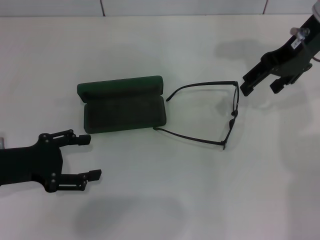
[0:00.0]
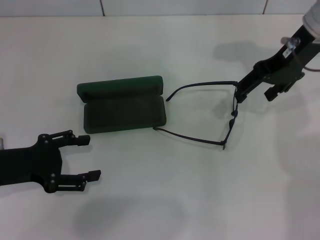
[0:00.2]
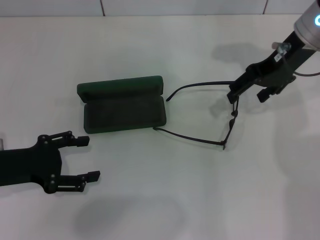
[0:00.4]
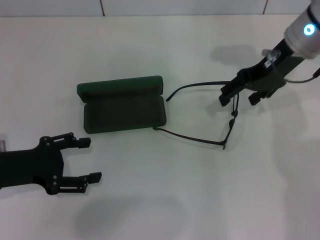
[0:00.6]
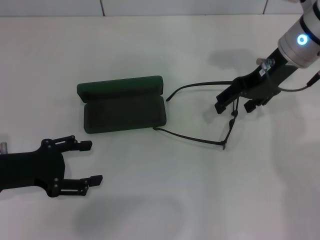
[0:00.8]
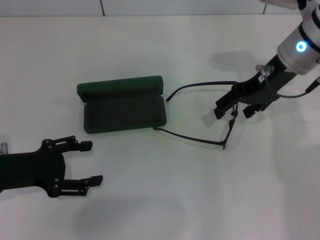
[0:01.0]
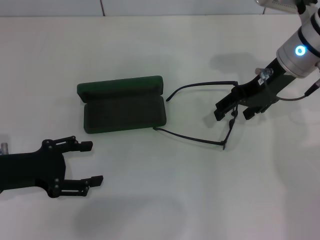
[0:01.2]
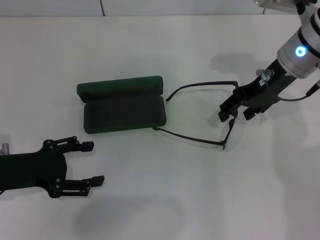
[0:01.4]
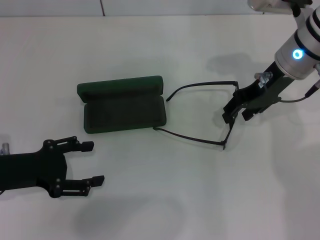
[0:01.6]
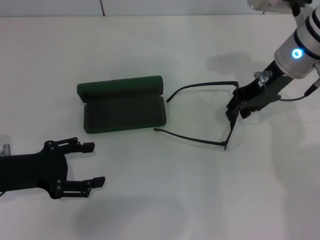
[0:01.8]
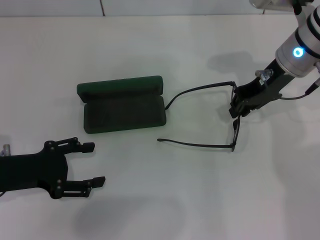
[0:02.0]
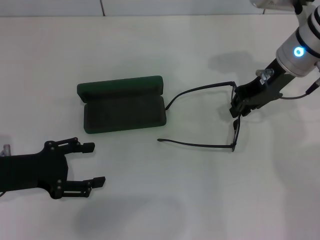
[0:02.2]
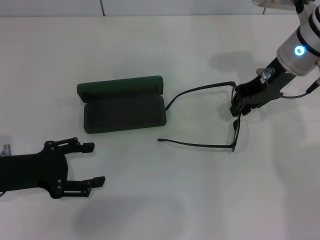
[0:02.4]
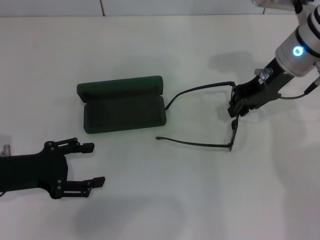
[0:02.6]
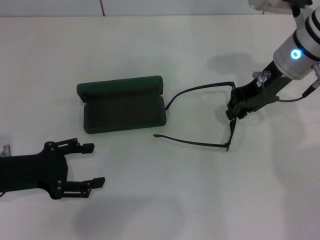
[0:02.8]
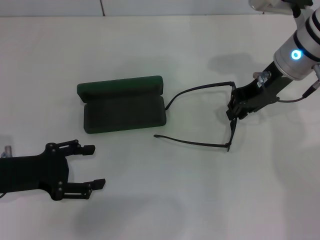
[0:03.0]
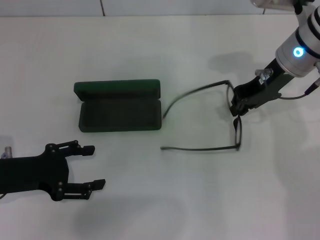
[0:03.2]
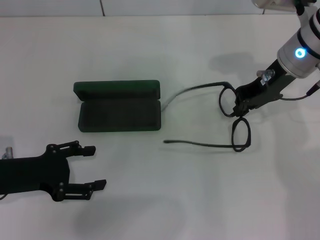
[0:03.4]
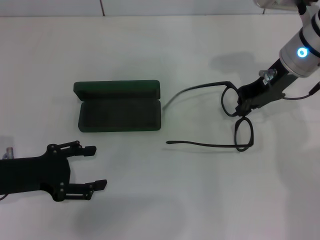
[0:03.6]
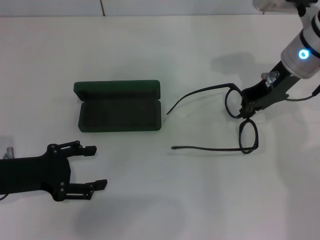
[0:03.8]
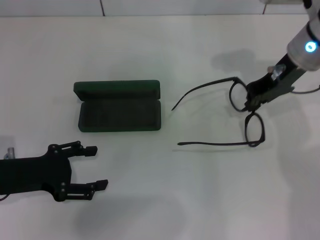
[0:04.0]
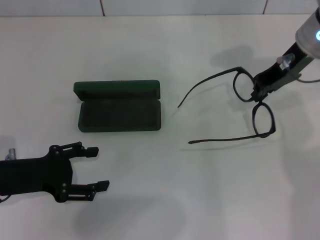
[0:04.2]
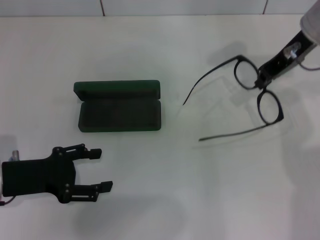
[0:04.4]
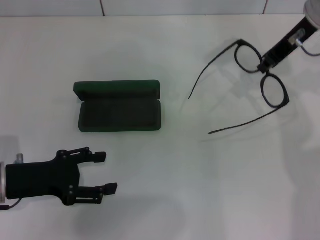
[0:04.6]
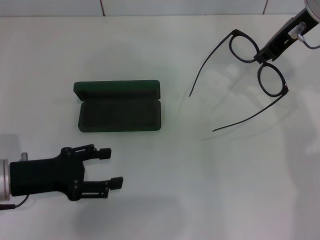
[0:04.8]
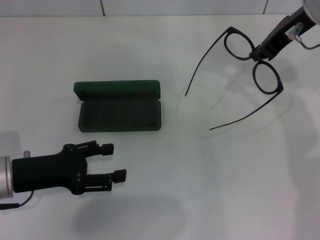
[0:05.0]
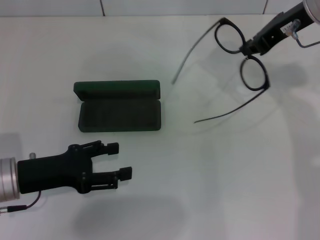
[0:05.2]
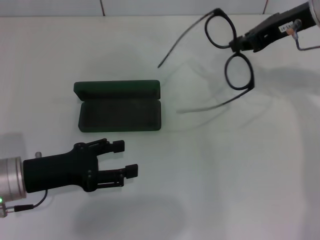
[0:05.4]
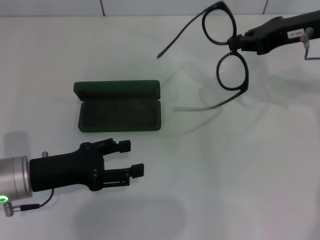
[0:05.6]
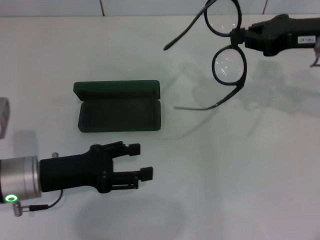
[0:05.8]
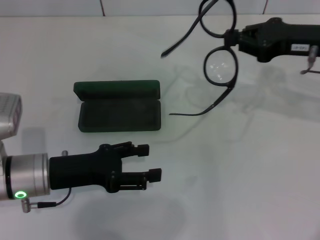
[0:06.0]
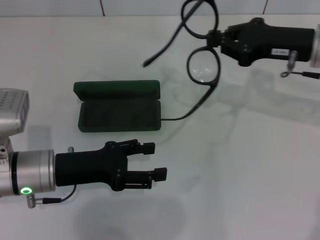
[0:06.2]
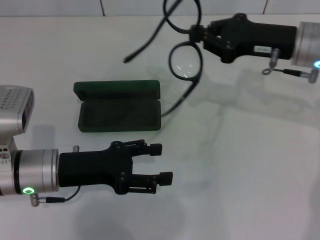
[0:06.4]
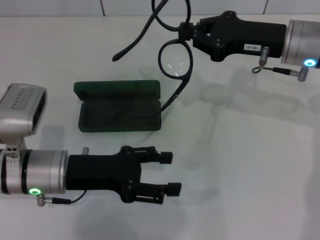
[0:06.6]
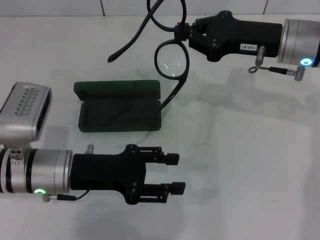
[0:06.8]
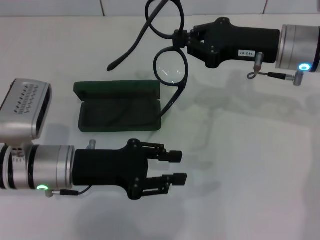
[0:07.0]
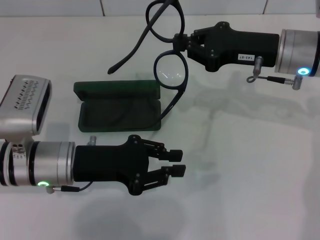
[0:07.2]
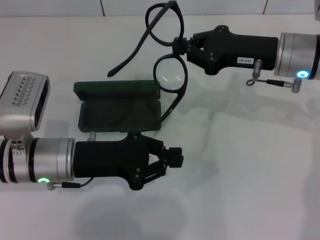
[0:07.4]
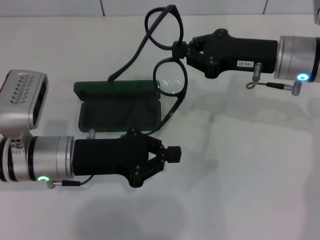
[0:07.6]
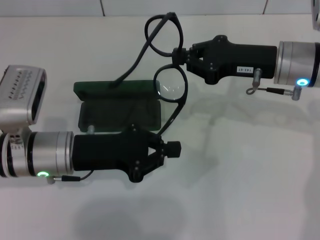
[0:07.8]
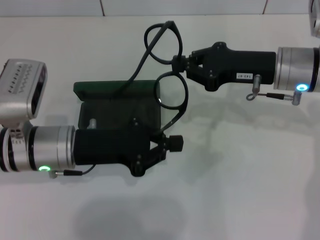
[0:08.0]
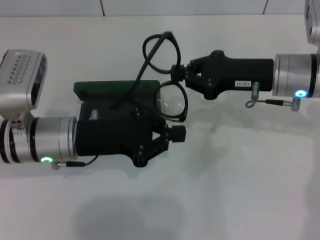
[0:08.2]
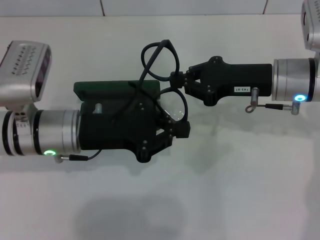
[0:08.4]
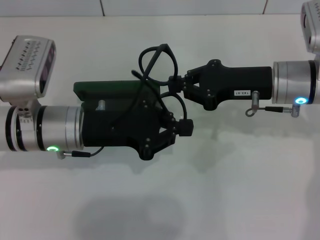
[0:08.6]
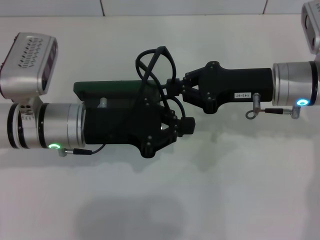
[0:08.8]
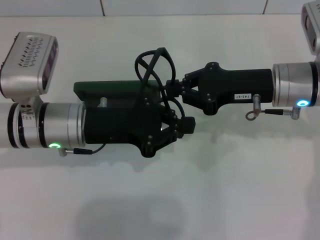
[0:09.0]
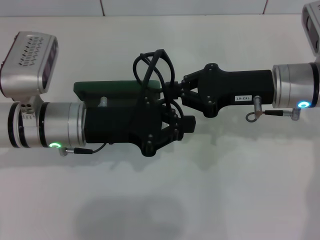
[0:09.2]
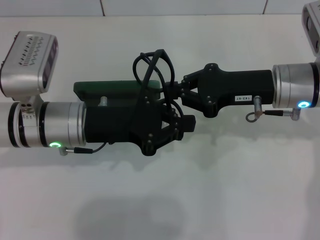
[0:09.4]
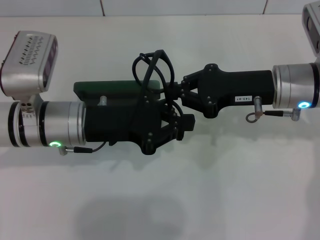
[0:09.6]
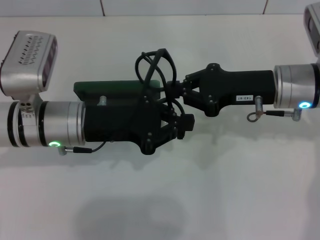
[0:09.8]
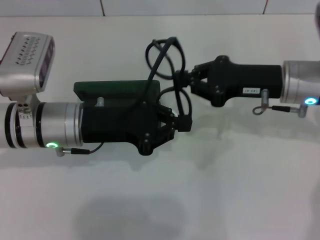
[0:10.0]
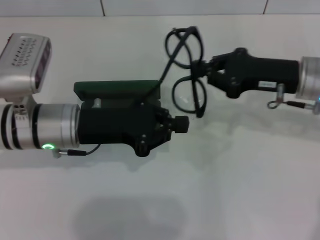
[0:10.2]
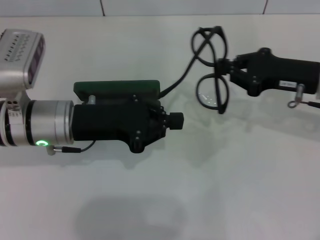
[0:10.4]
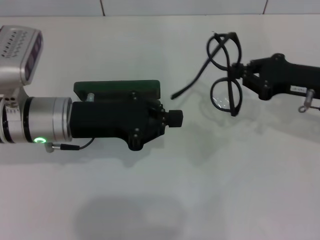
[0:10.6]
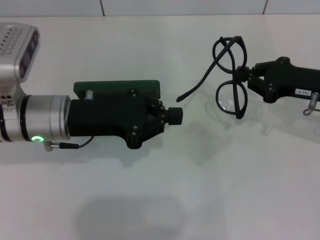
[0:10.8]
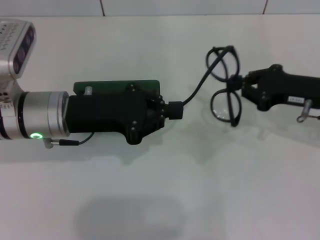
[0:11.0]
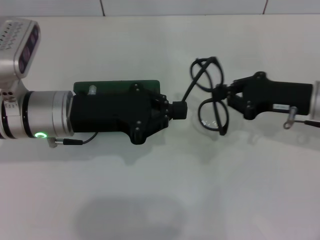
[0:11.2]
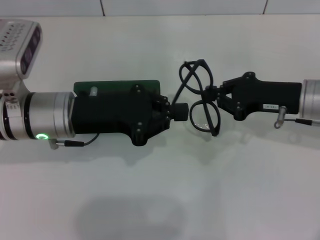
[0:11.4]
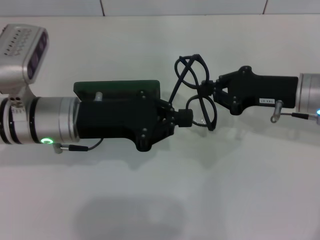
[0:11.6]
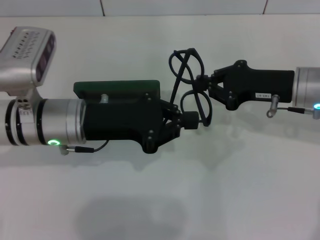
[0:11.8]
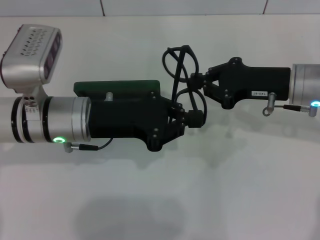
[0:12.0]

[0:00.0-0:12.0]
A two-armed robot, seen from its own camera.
Step, 0:00.0 to 0:03.4: Grab the eyeglass frame with your right hand.
0:00.0 to 0:01.6: The right gripper shifts approximately 5 cm downward.
0:01.6 to 0:03.0: The right gripper closes its fingers.
0:03.0 to 0:04.4: The right gripper travels upward by about 5 cm.
0:04.4 to 0:06.0: Both grippers travel together to the right, roughly 5 cm.
0:06.0 to 0:07.6: The right gripper goes roughly 5 cm to the left, while the left gripper closes.
0:09.0 to 0:10.4: The right gripper shifts approximately 5 cm to the right.
0:10.4 to 0:12.0: There are only small adjustments of the grippers.

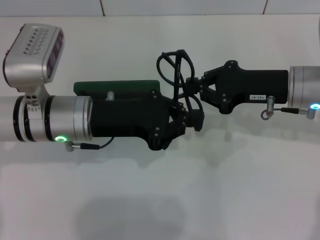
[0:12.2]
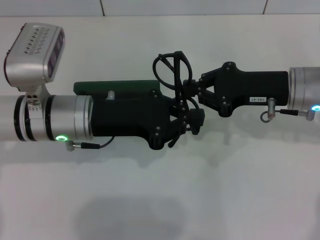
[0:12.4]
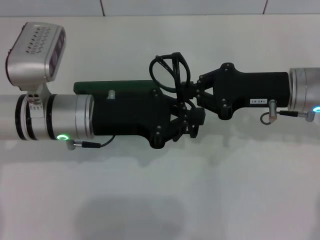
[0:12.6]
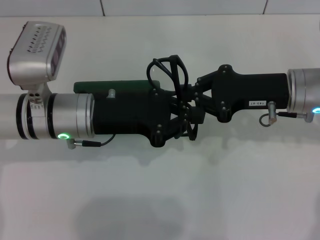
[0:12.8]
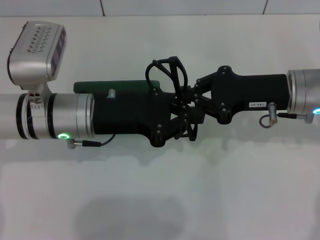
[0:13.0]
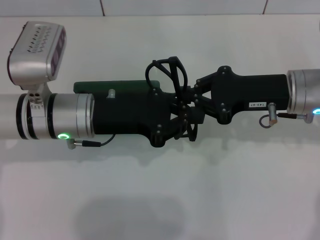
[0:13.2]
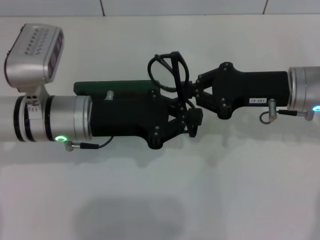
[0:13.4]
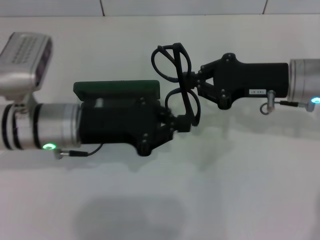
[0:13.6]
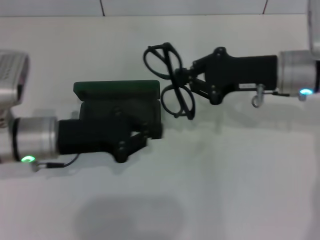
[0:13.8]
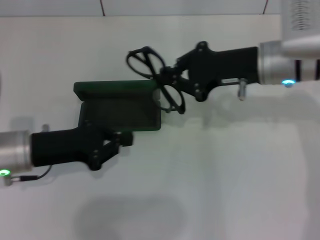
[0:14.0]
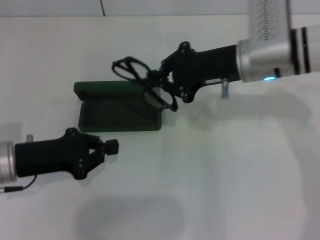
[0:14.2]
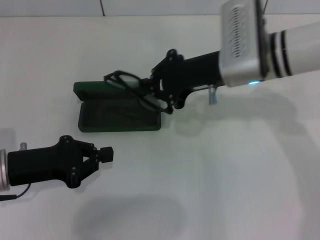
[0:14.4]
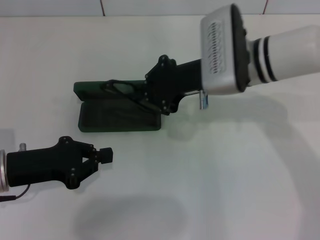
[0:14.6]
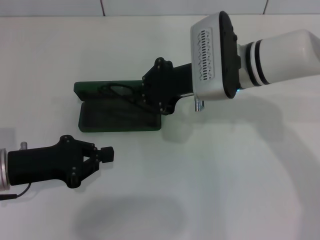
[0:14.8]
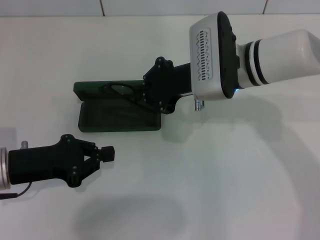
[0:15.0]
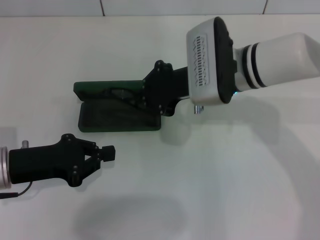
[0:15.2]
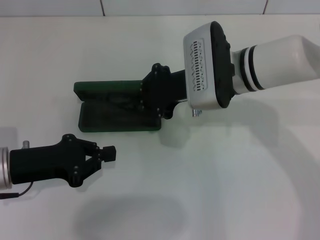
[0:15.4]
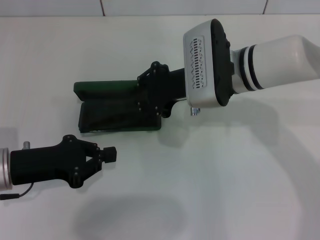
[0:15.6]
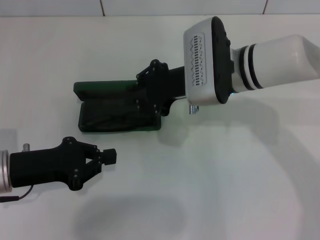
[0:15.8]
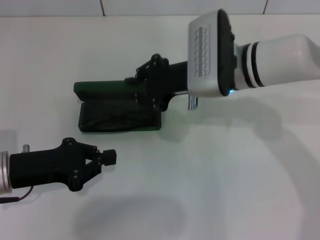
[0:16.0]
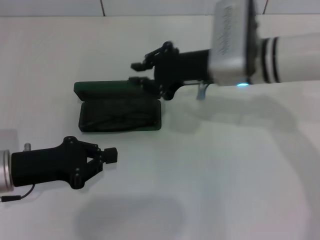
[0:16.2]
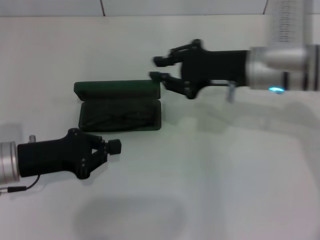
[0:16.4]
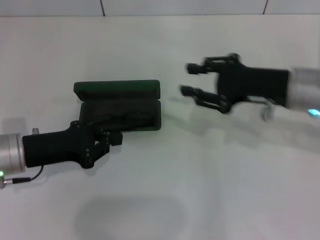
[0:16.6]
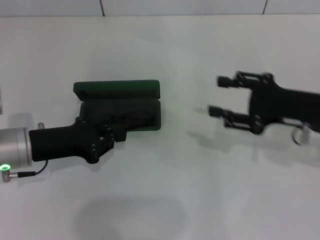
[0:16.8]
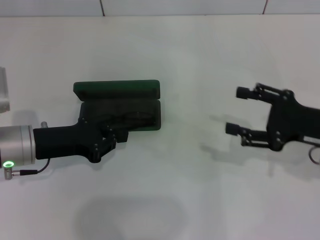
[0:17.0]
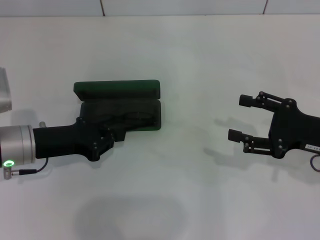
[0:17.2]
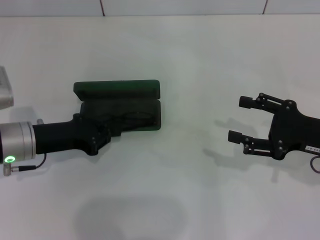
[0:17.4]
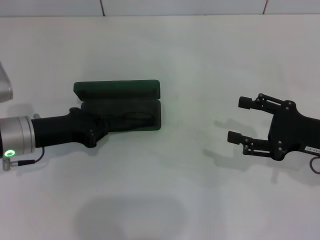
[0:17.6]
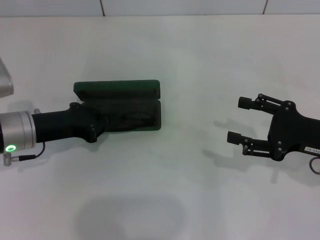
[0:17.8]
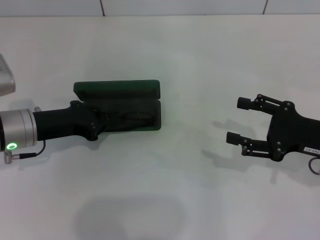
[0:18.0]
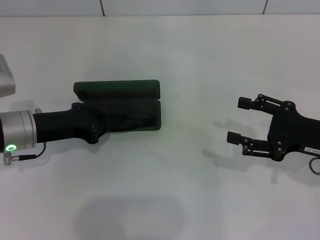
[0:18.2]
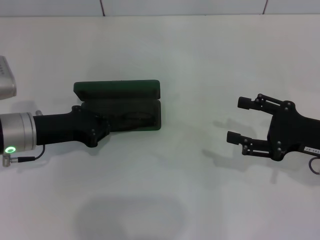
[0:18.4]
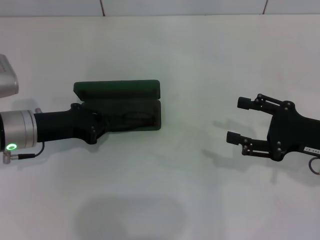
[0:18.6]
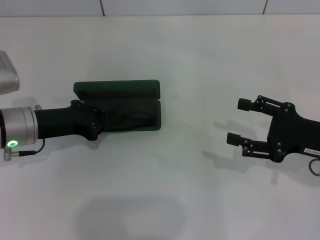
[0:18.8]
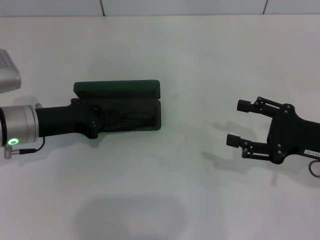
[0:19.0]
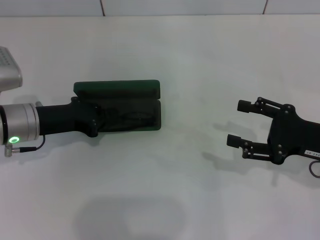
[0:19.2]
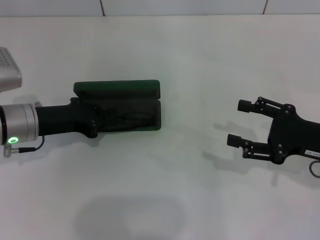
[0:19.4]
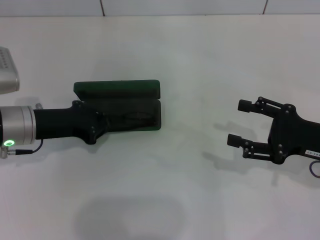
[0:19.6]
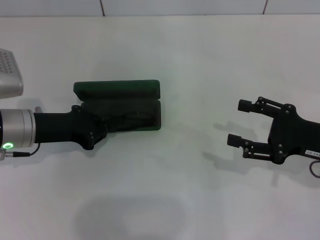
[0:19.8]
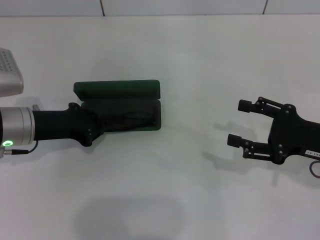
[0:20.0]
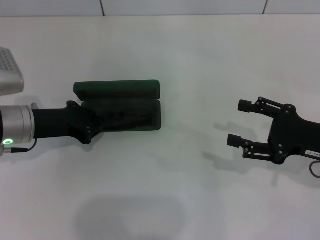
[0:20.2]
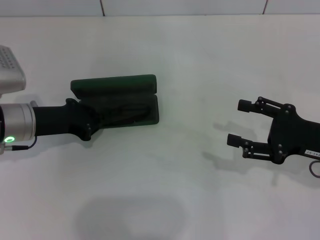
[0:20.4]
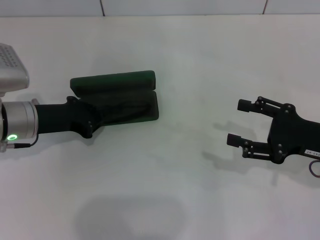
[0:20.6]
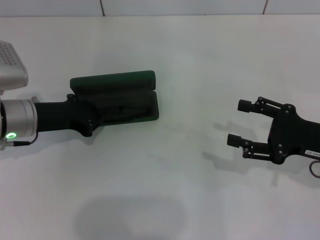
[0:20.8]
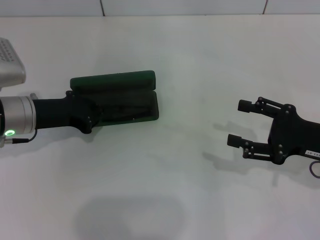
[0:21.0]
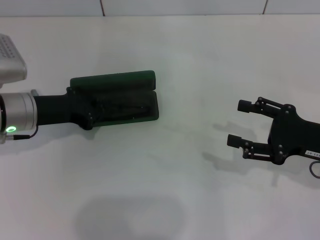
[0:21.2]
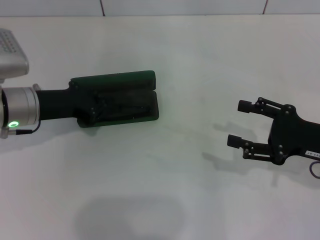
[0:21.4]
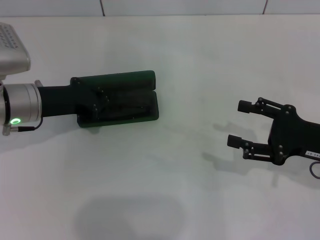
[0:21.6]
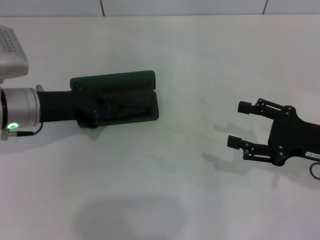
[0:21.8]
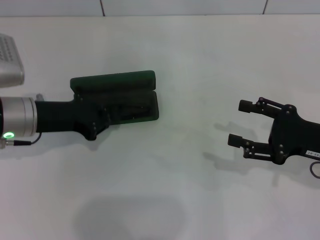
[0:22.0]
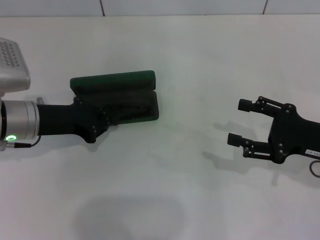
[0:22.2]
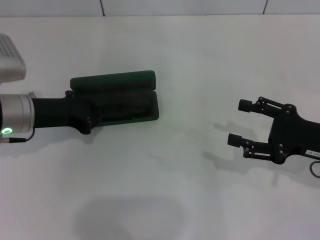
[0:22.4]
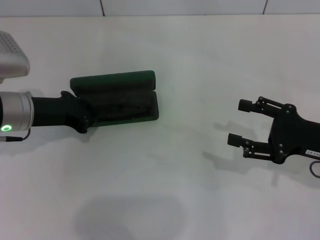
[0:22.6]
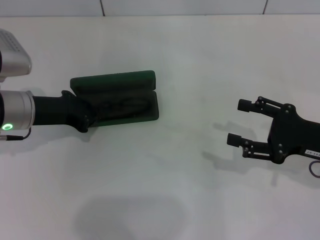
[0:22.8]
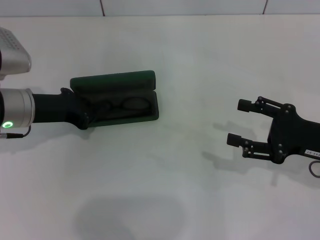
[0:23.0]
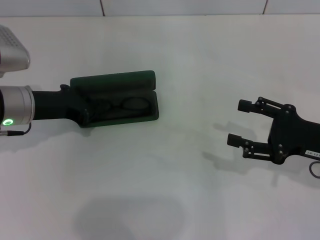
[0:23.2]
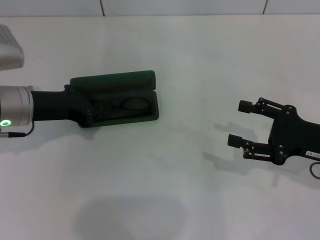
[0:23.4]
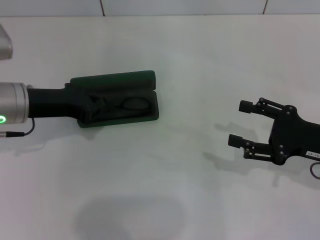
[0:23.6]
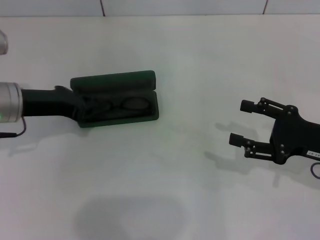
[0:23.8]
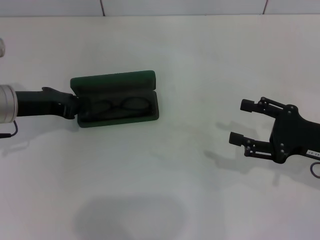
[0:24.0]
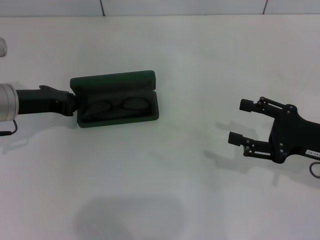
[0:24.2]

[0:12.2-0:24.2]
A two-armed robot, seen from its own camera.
Step, 0:13.2 to 0:21.2: Put the glasses into the case with your right hand.
0:12.2 to 0:13.8: The left gripper ends up some 5 cm from where it was.
0:13.8 to 0:15.2: The right gripper moves to the left, about 10 cm; the left gripper shifts roughly 5 cm to the left.
0:15.2 to 0:16.6: The right gripper moves to the right, approximately 10 cm.
0:16.6 to 0:18.2: The right gripper heads to the right and backward, covering some 10 cm, and opens its fingers.
0:18.2 to 0:22.6: There are only small adjustments of the grippers.
0:22.6 to 0:24.2: There are only small adjustments of the grippers.
